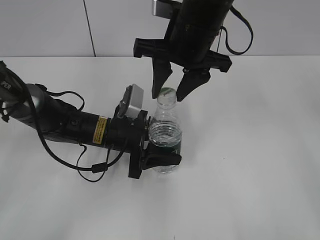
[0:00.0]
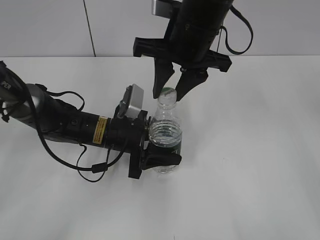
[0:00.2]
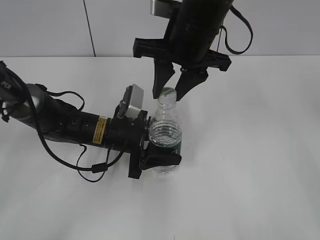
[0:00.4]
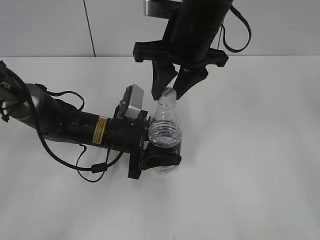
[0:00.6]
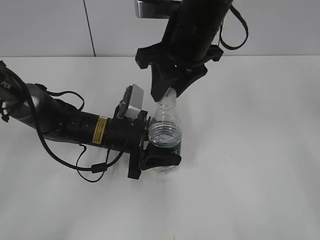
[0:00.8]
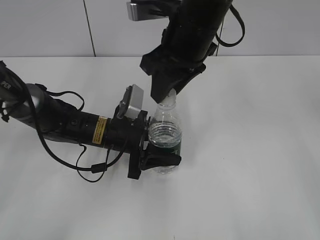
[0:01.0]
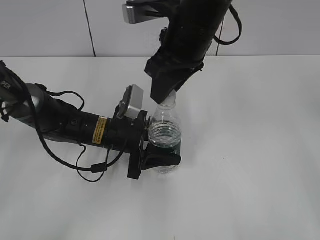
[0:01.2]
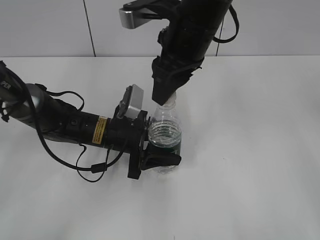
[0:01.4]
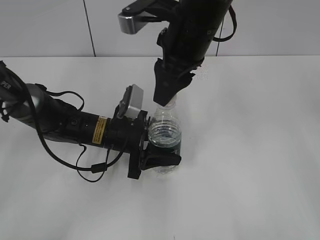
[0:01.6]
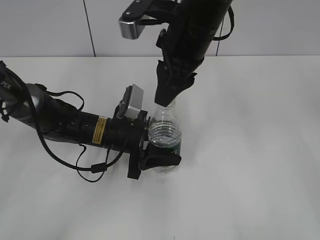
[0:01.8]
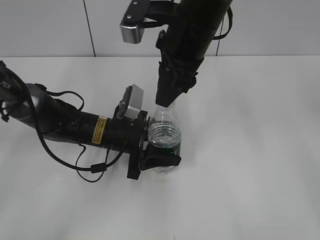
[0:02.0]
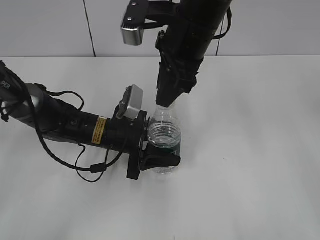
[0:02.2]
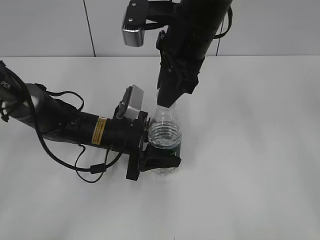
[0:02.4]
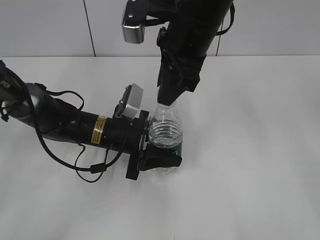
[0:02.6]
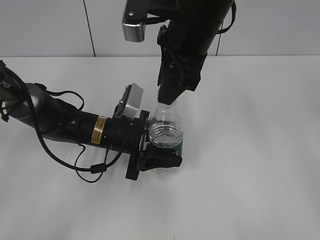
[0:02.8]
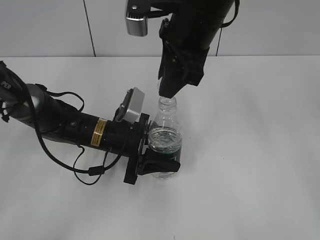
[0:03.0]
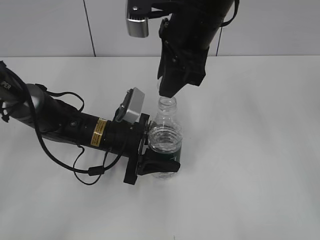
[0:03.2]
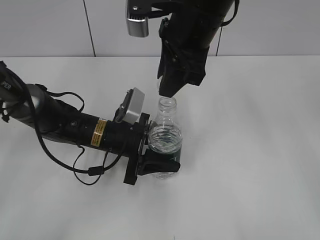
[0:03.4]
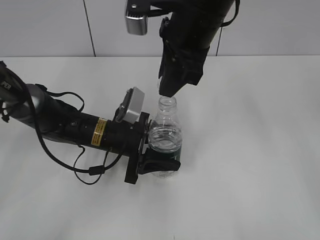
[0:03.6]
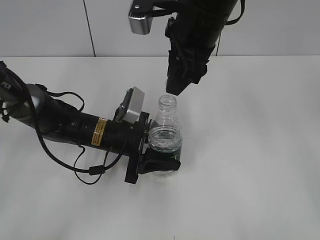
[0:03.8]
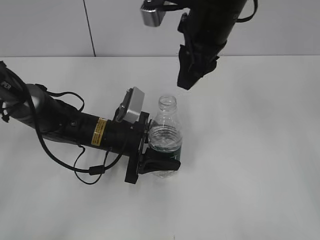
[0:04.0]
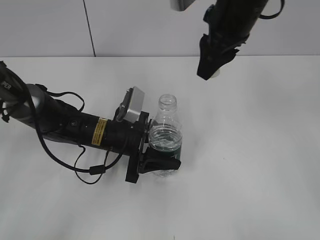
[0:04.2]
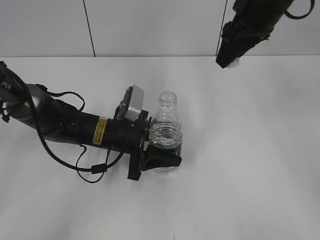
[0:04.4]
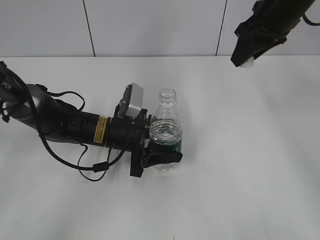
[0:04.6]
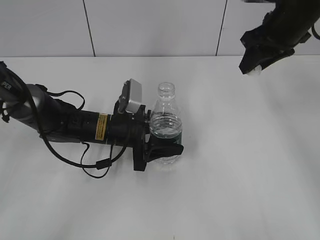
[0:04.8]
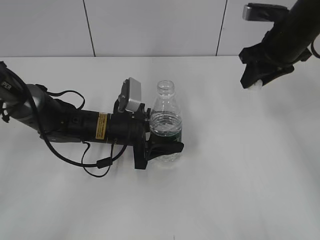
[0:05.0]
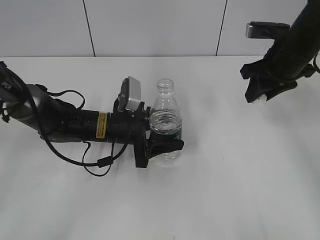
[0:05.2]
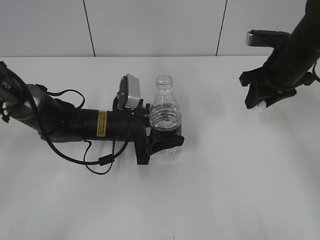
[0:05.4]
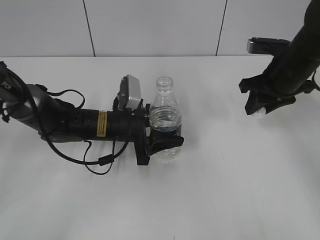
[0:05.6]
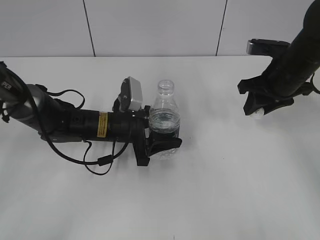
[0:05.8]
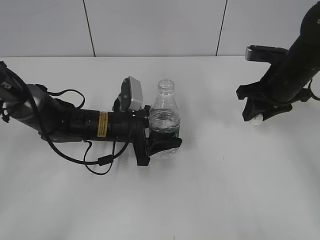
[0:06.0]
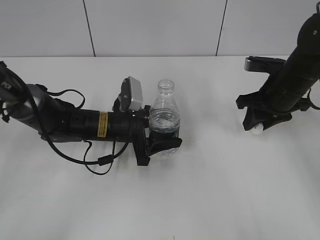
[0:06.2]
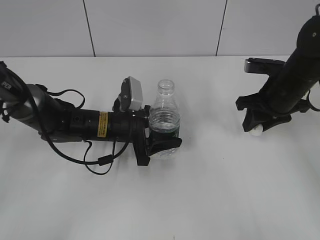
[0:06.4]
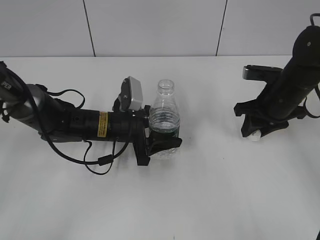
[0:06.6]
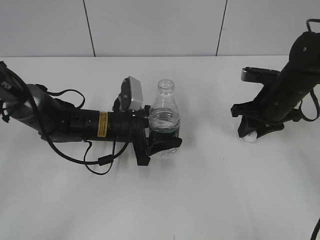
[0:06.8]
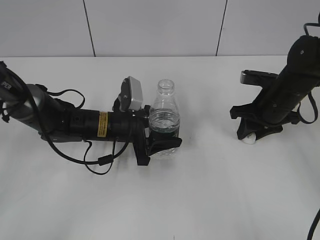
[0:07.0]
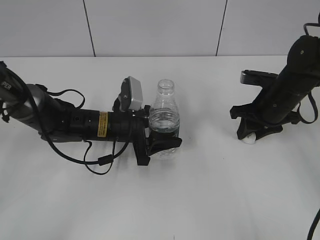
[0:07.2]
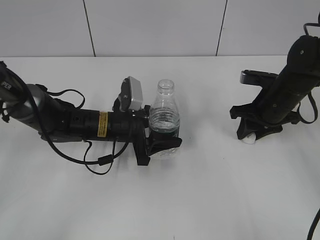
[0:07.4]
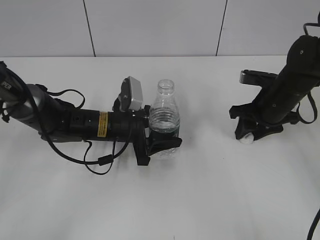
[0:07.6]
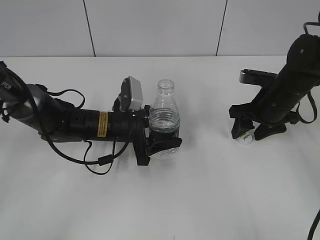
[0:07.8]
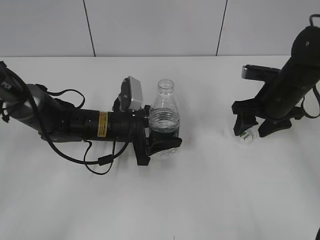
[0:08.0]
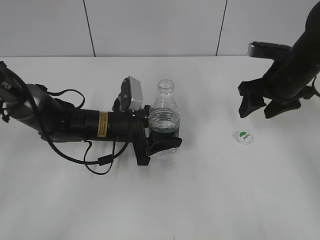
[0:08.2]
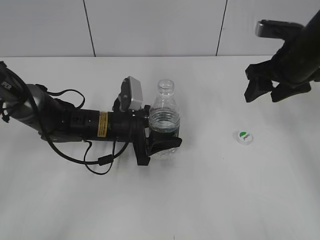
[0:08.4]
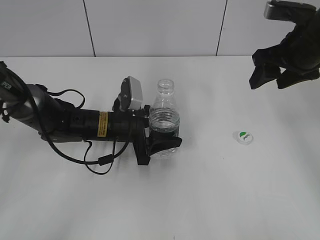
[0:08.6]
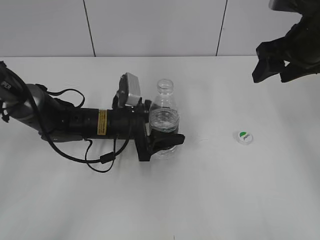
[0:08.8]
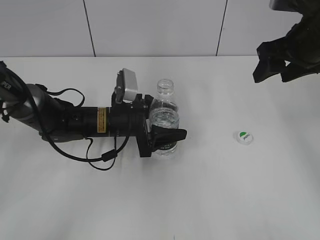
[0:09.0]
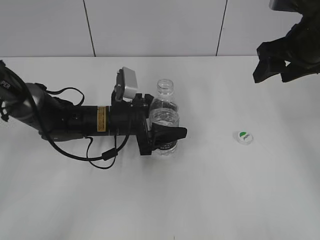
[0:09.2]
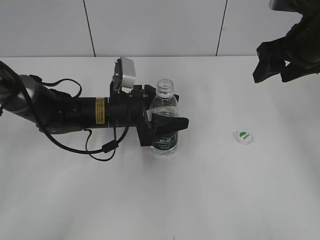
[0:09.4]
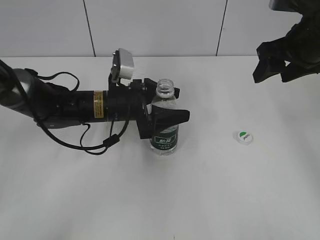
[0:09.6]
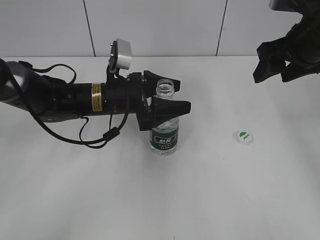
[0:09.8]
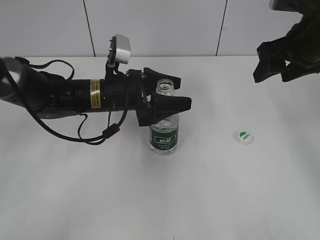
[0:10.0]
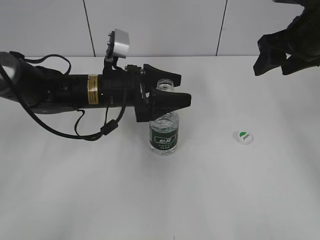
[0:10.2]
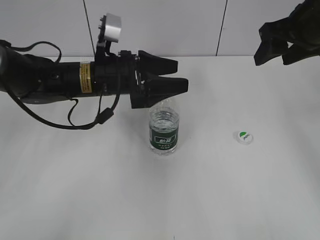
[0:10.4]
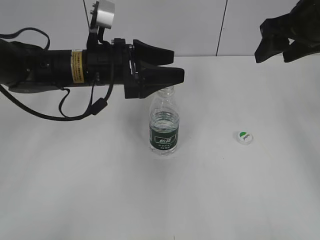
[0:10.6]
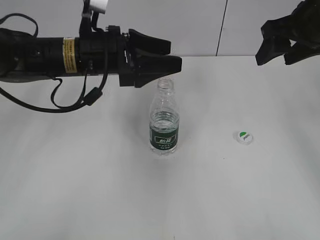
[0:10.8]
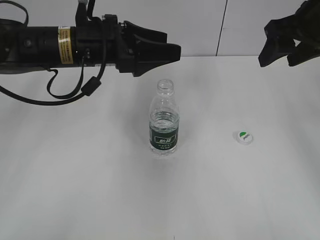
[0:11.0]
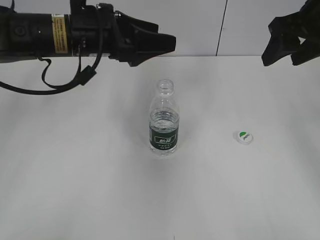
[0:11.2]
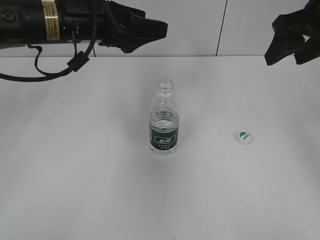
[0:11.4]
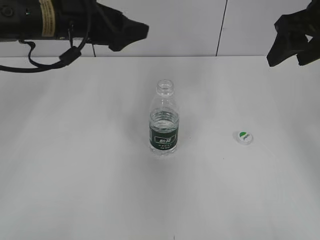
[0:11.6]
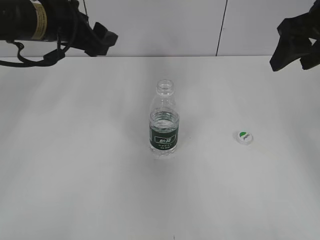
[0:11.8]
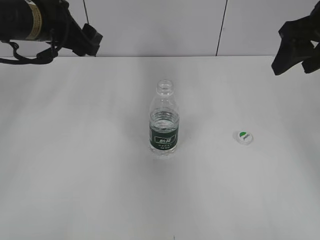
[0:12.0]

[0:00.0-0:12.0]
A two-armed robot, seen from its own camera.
Step, 0:00.0 to 0:03.8: Unscrew the bottle cap with the right gripper while holding the bottle with the left gripper.
Step, 0:04.0 to 0:07.8: Place the bottle cap on the table with the right gripper.
Step, 0:08.2 to 0:10.2: Place the bottle on the table with the left gripper.
0:03.0 to 0:04.4: The right gripper heads to the right and forward, covering roughly 10 cm.
0:04.4 to 0:06.0: The right gripper travels downward and to the right by about 15 cm.
0:06.0 to 0:07.6: The right gripper shifts about 5 cm downward.
0:07.6 to 0:09.0: The right gripper goes about 15 cm upward, and opens up.
0:09.0 to 0:10.4: The left gripper travels upward by some 10 cm.
0:10.4 to 0:12.0: The left gripper heads upward and to the left, covering roughly 15 cm.

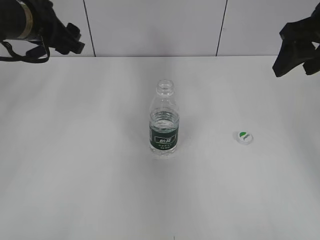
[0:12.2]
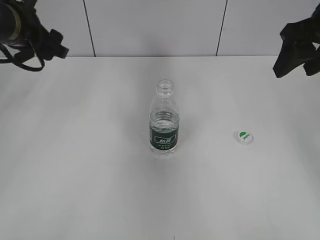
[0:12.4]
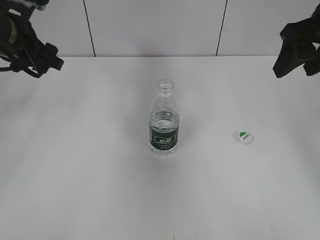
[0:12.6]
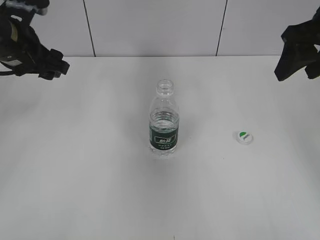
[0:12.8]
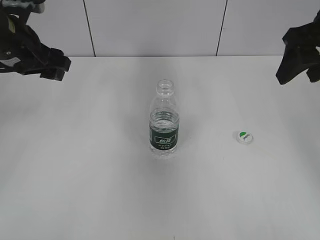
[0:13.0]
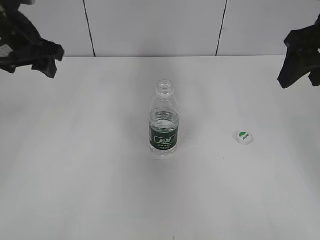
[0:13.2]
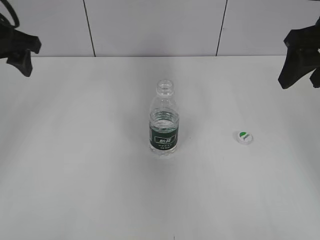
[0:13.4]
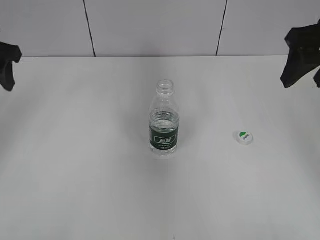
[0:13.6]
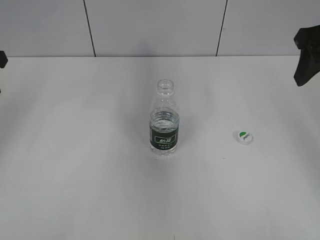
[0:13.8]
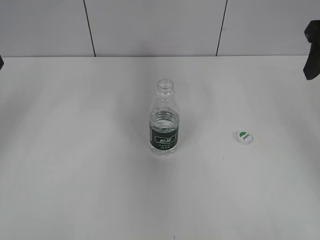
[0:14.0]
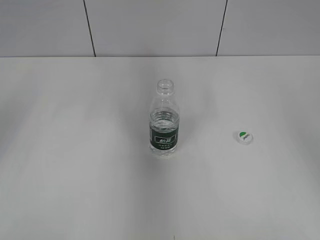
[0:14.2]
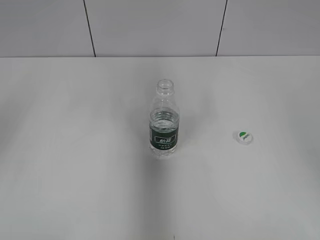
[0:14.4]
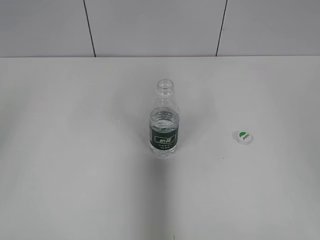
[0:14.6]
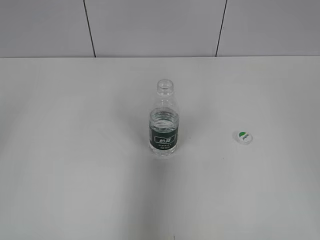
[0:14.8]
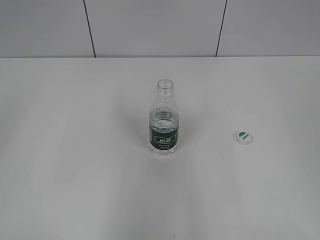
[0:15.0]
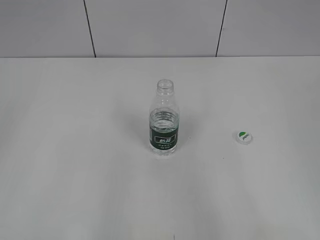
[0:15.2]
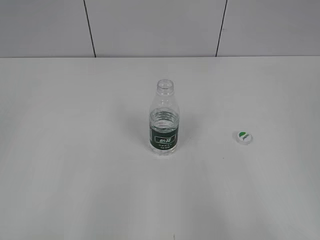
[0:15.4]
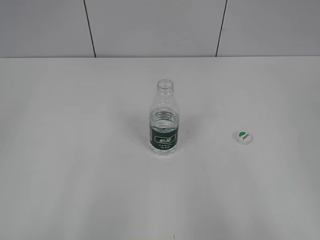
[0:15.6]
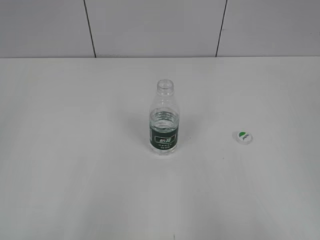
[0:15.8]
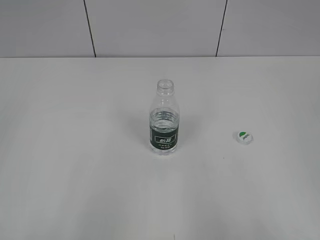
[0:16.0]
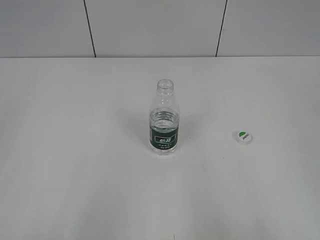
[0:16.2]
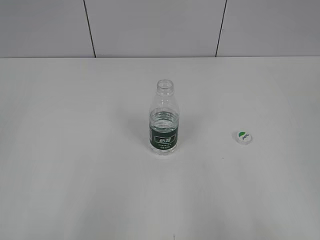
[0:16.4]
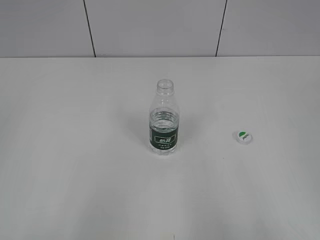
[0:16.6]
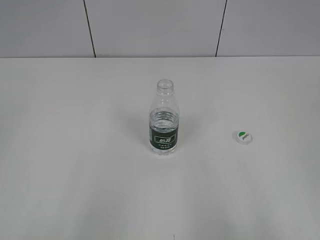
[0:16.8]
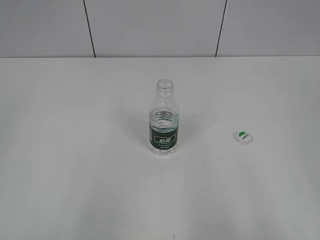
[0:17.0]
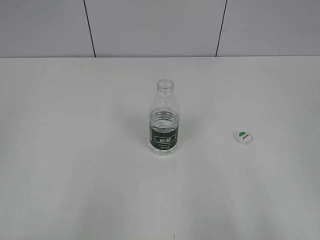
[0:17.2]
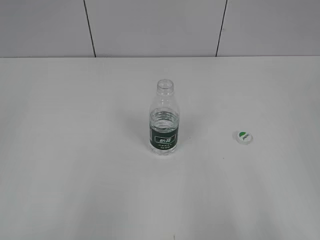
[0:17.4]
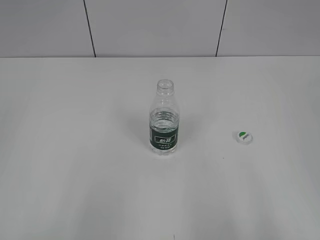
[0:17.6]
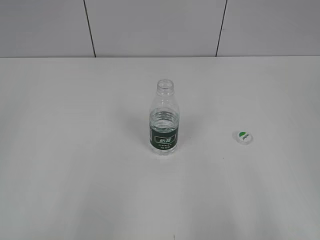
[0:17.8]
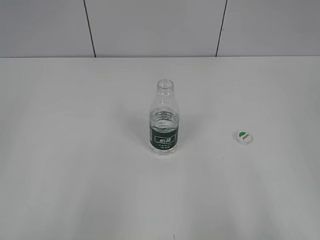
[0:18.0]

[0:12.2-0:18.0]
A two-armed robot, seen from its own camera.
0:12.2 to 0:13.6: The left gripper travels to the left by about 10 cm.
0:13.6 to 0:15.0: The grippers both shift backward by some 25 cm.
0:15.0 to 0:16.6: The grippers both shift backward and downward by approximately 10 cm.

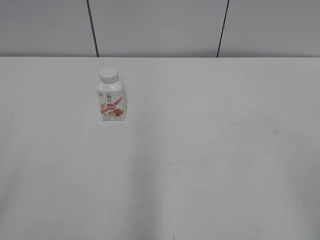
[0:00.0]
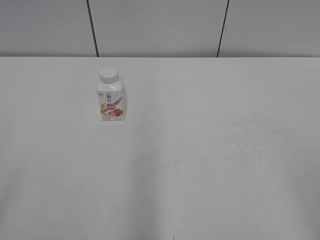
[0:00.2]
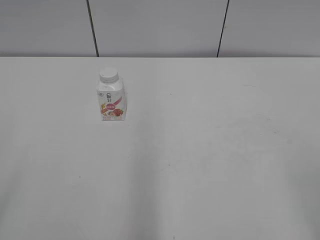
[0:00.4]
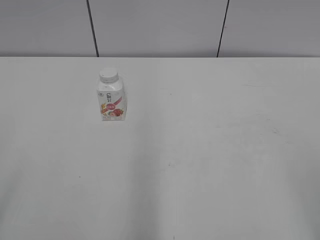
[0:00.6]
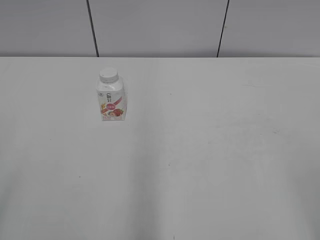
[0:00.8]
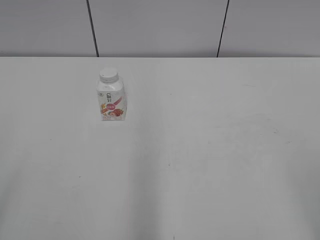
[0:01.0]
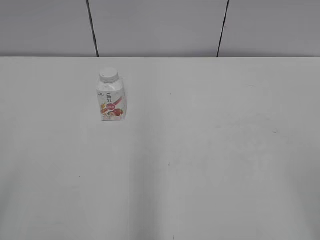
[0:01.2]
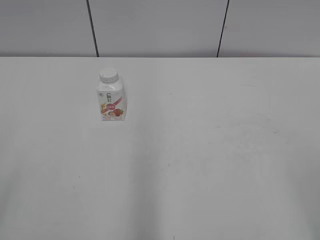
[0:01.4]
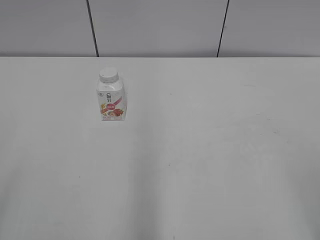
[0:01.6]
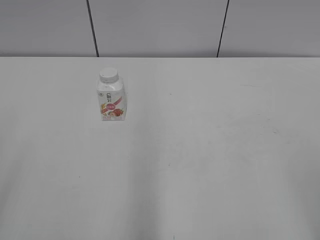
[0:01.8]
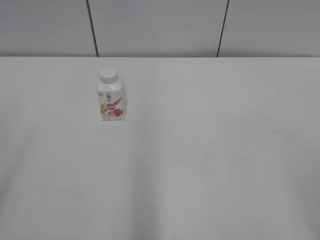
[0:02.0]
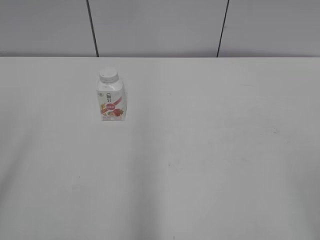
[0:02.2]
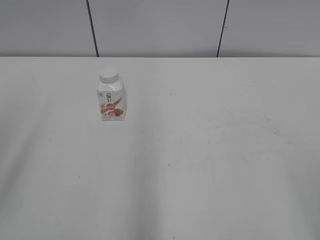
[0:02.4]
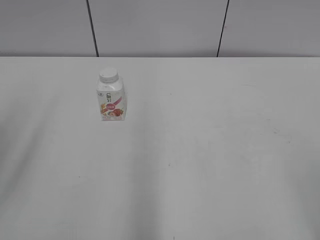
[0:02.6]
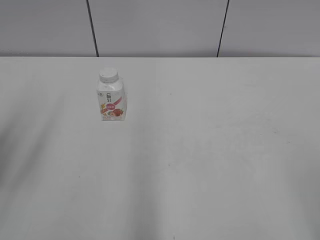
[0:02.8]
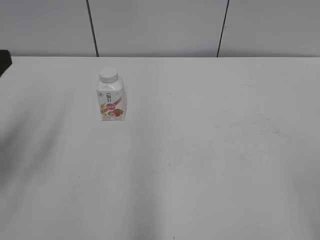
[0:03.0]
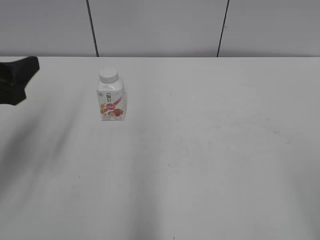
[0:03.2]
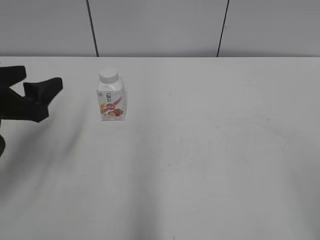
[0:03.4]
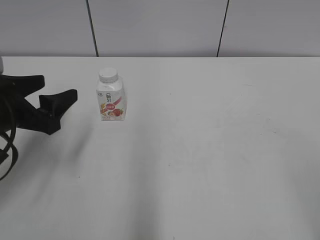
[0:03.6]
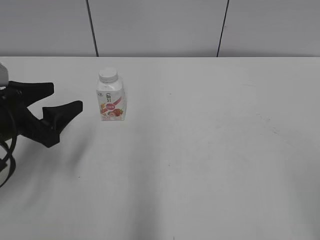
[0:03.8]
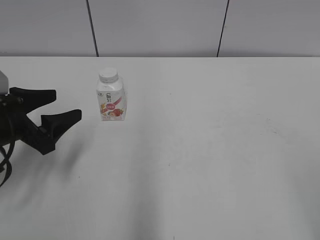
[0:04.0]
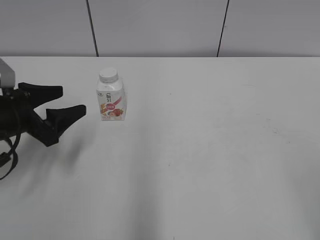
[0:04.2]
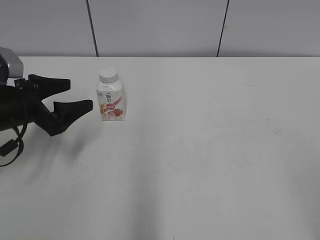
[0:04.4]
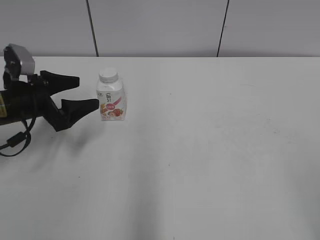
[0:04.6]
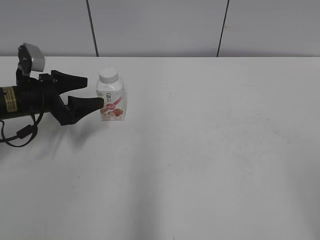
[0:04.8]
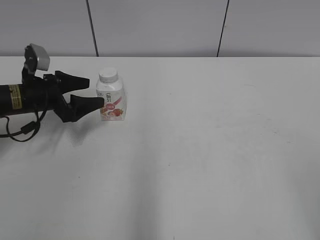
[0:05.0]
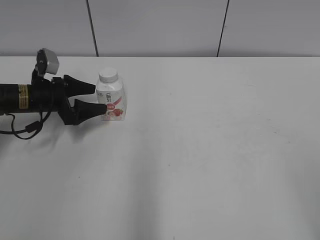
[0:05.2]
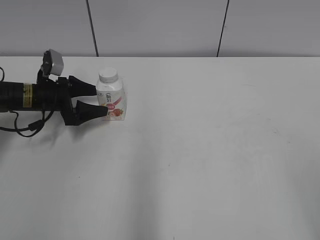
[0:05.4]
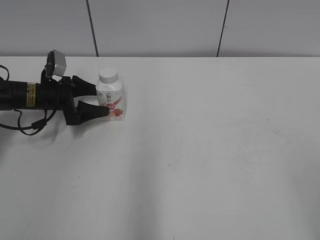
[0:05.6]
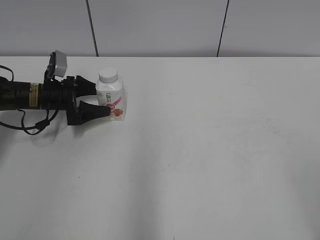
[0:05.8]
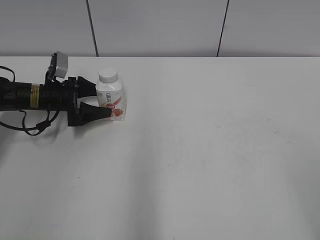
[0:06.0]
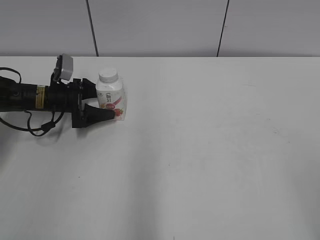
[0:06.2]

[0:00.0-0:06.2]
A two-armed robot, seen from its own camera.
0:01.6 to 0:03.2: The left gripper is displaced forward by approximately 20 cm.
0:03.2 to 0:04.6: The left gripper is displaced forward and downward by about 15 cm.
0:04.6 to 0:06.2: The left gripper goes approximately 15 cm forward and downward.
